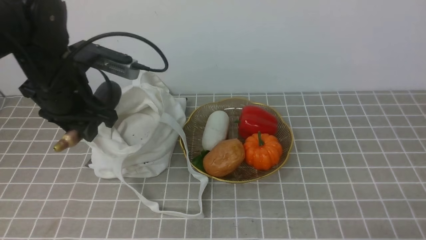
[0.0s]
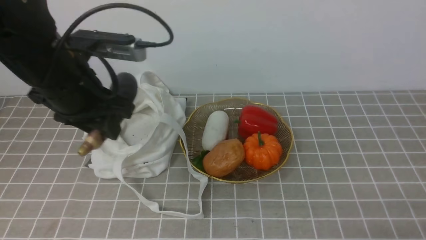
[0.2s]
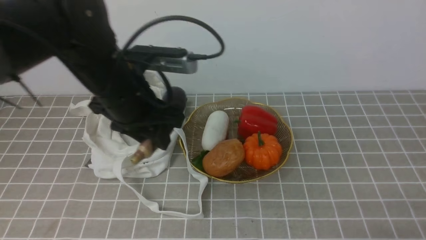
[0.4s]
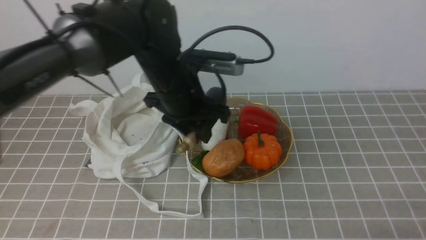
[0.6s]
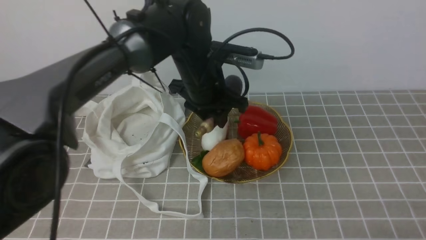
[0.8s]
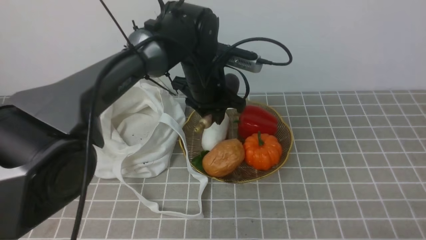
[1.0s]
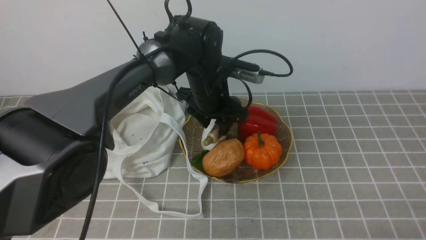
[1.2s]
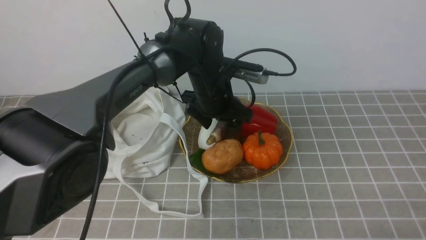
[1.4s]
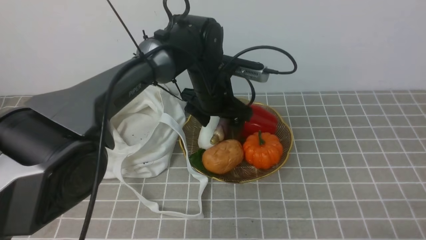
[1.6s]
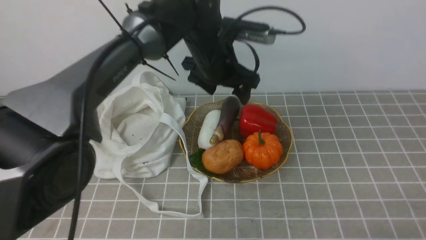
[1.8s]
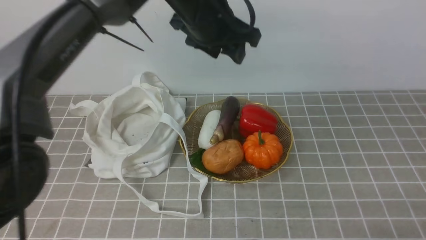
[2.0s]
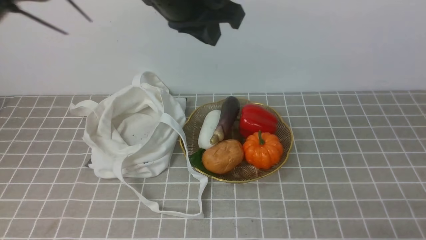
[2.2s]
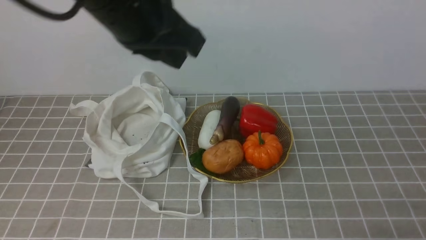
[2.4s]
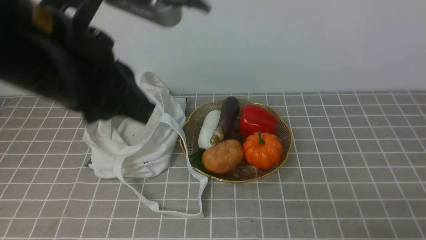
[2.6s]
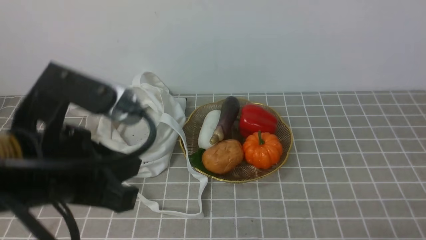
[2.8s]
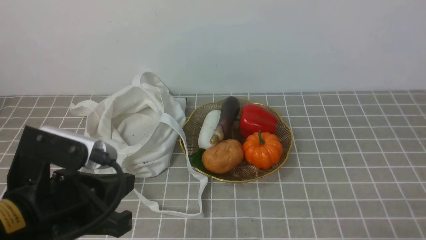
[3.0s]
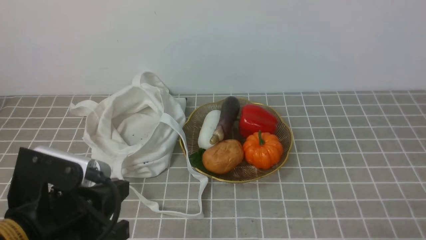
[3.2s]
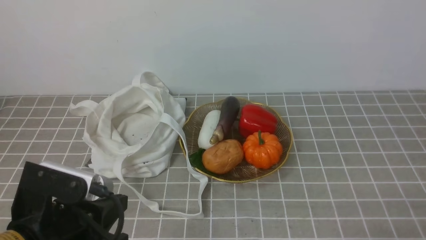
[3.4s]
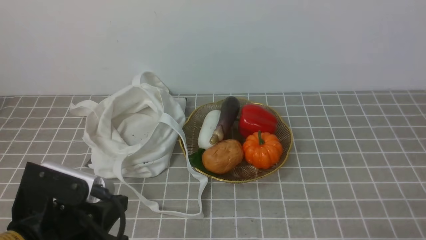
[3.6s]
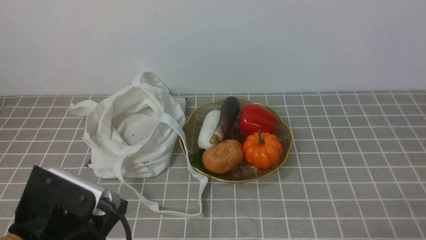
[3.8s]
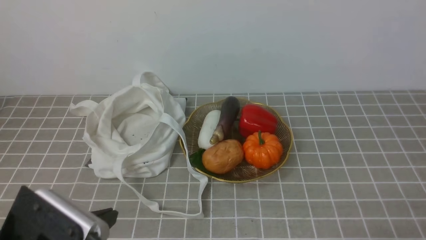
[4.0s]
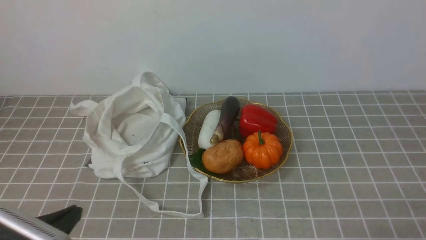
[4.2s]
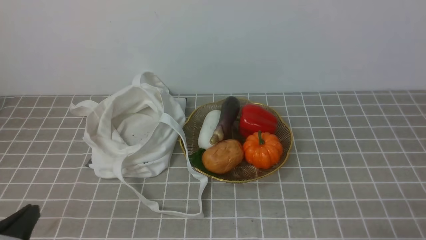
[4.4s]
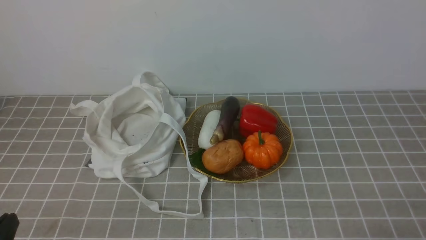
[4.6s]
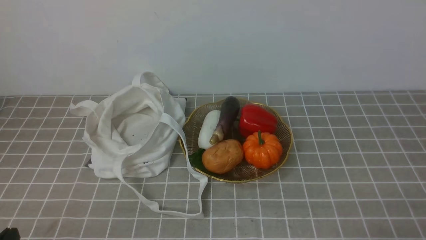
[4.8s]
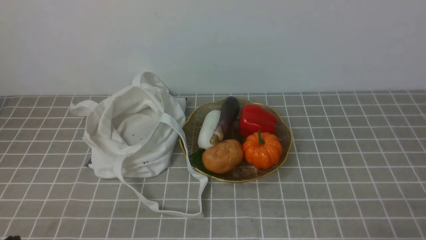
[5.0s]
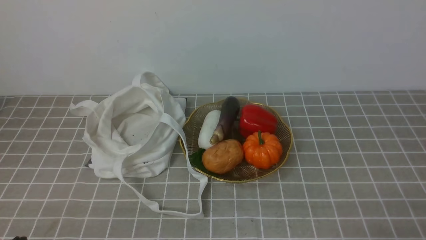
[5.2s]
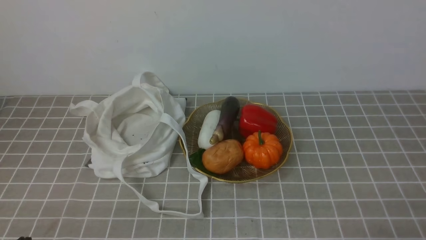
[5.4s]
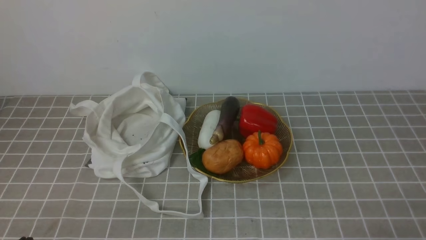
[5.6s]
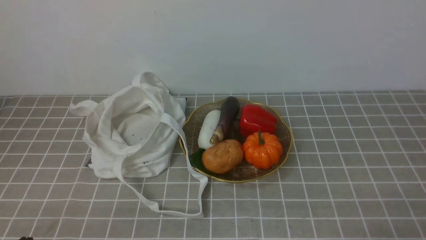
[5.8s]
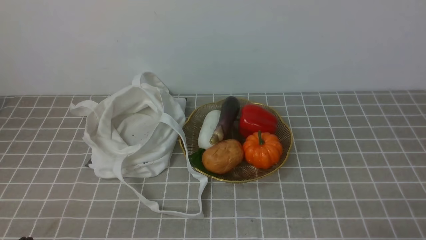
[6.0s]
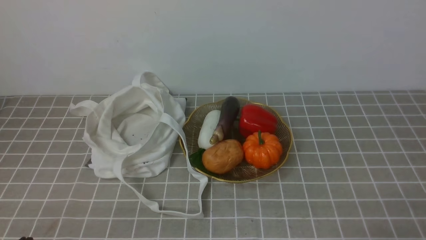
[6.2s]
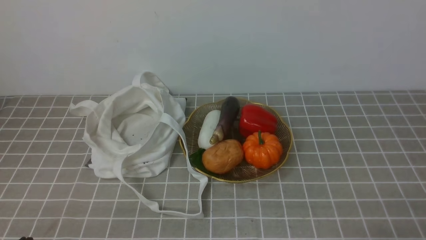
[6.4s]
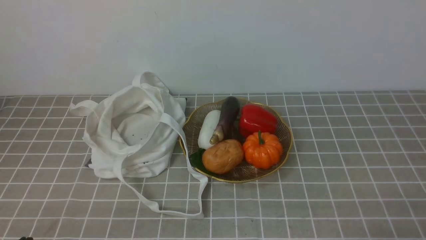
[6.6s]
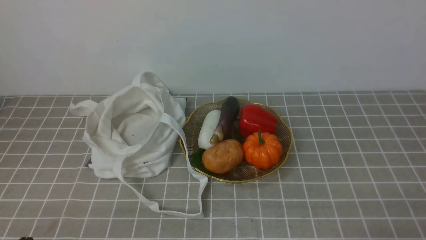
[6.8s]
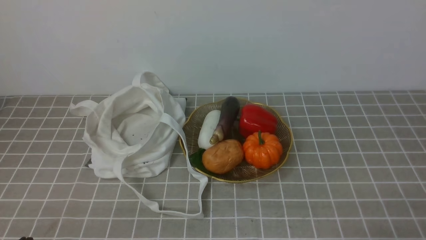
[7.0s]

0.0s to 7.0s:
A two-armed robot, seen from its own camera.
Task of the whole recording: take vegetables from bag on grey coffee tablecloth place on plate.
Step, 0.0s to 1.8s: Place the eggplant on the plate with left gripper.
0.0s to 1.4s: The left gripper moves to the right, downward and forward, some 20 cm, and opens its fingers.
1.4s to 2.8s: The left gripper goes about 30 cm backward, upward and to the left, and closes.
2.8s to 4.2s: The left gripper travels downward, backward and to the left by approximately 20 cm.
4.2s to 5.6s: The left gripper moves roughly 5 cm.
5.6s to 7.0s: Both grippers stay about where they are.
